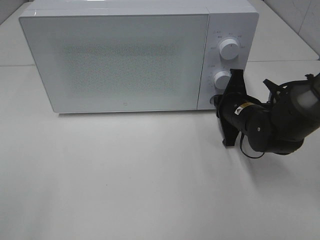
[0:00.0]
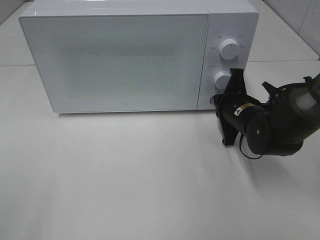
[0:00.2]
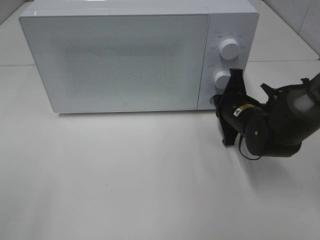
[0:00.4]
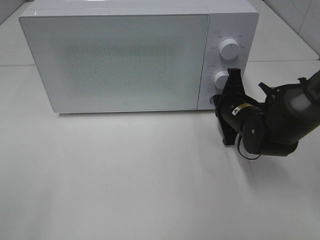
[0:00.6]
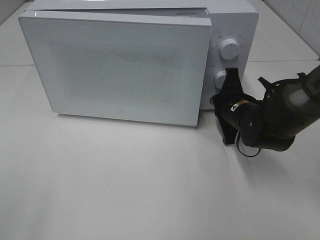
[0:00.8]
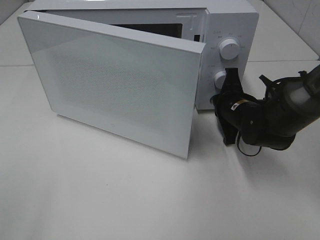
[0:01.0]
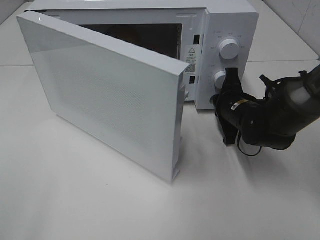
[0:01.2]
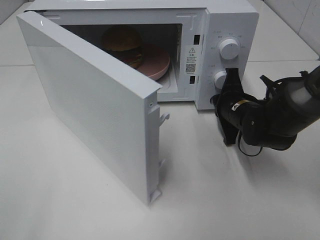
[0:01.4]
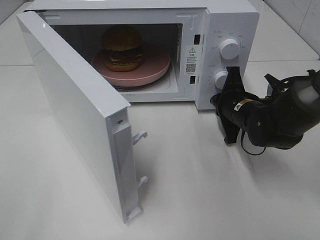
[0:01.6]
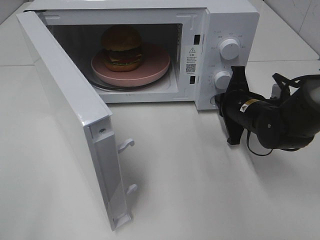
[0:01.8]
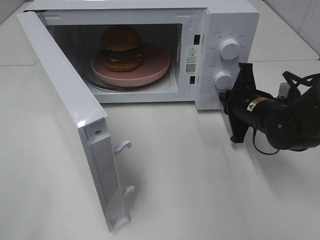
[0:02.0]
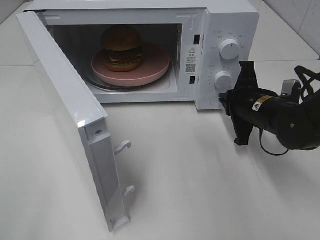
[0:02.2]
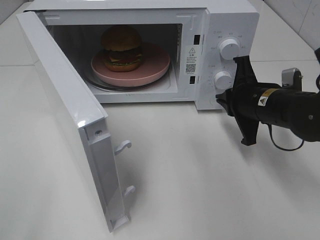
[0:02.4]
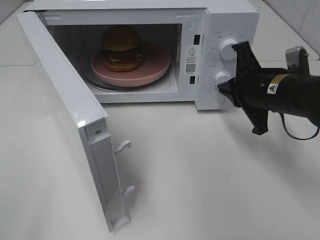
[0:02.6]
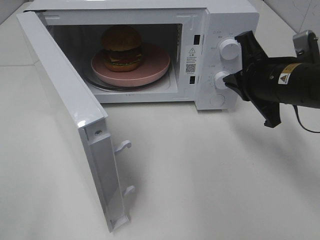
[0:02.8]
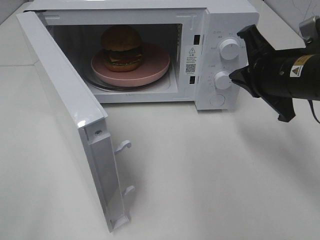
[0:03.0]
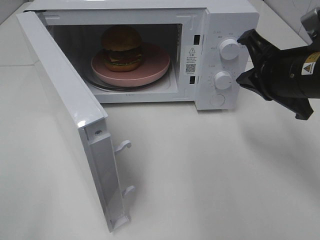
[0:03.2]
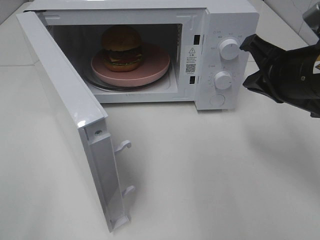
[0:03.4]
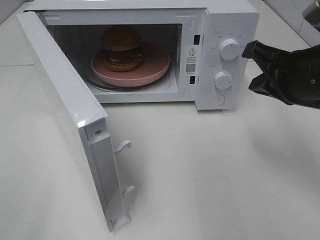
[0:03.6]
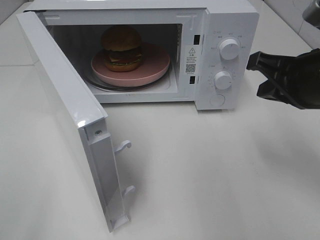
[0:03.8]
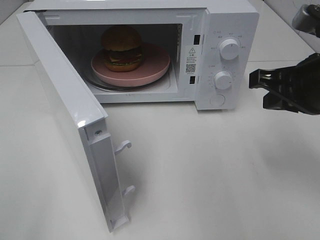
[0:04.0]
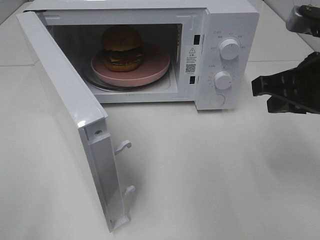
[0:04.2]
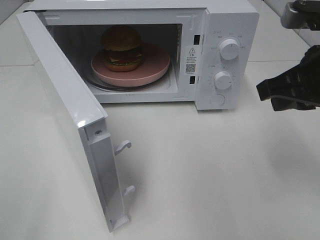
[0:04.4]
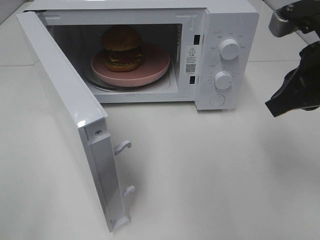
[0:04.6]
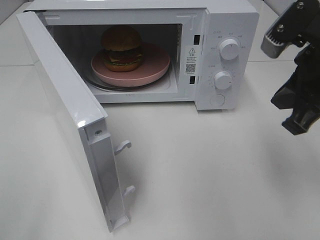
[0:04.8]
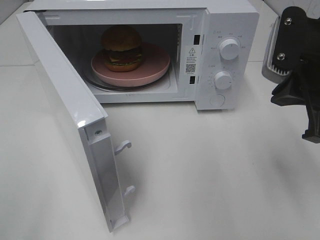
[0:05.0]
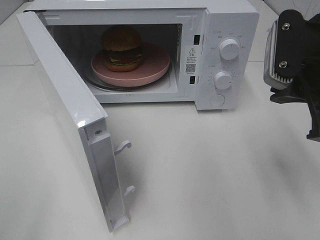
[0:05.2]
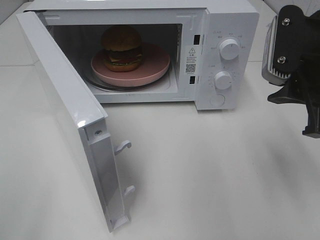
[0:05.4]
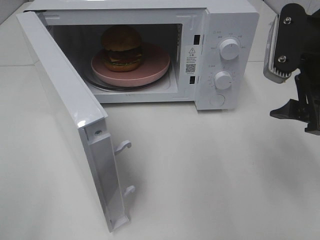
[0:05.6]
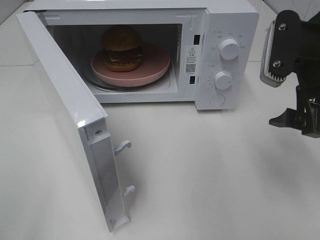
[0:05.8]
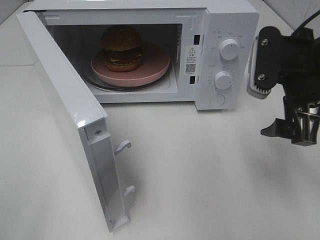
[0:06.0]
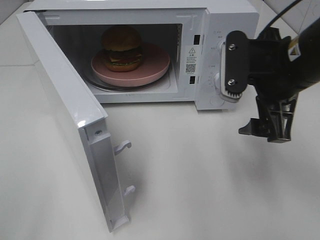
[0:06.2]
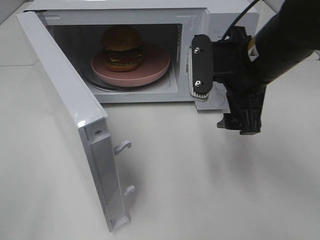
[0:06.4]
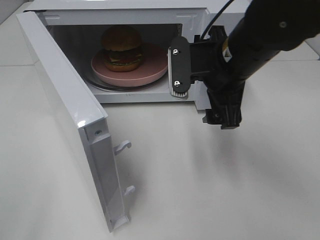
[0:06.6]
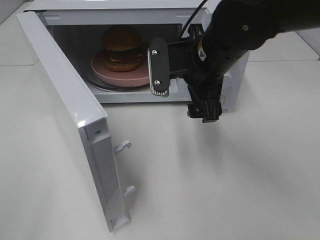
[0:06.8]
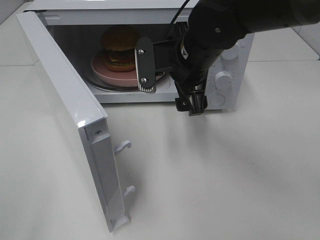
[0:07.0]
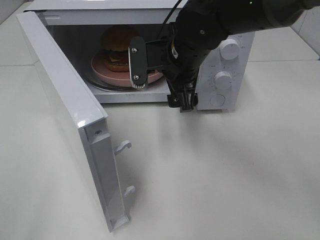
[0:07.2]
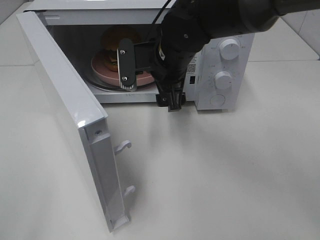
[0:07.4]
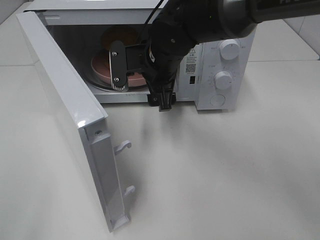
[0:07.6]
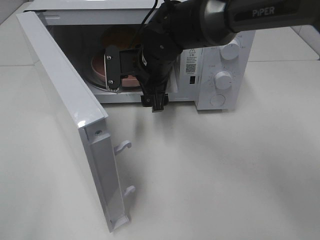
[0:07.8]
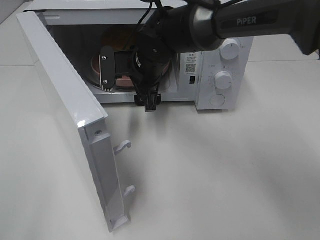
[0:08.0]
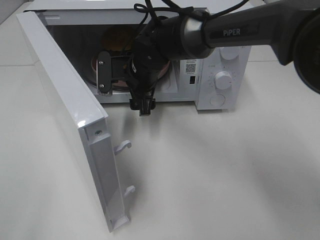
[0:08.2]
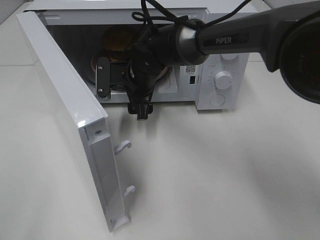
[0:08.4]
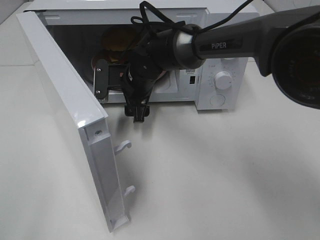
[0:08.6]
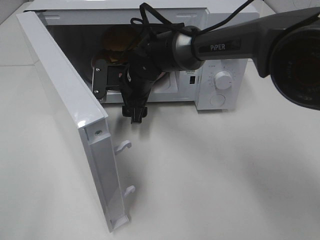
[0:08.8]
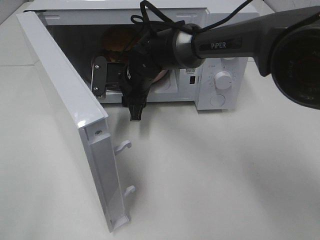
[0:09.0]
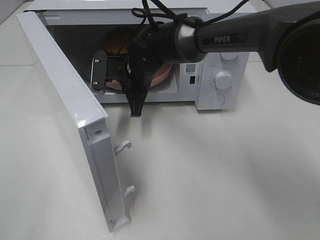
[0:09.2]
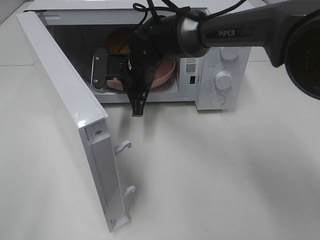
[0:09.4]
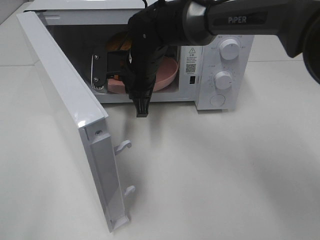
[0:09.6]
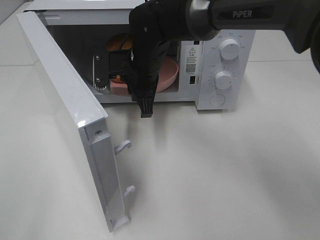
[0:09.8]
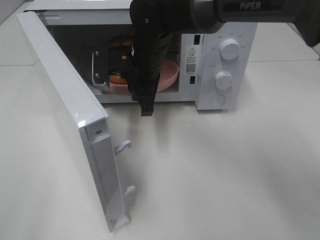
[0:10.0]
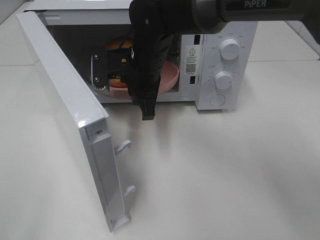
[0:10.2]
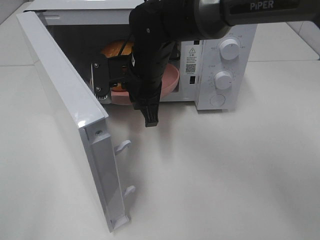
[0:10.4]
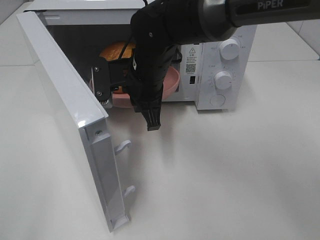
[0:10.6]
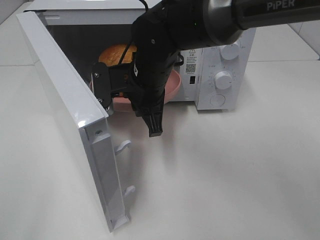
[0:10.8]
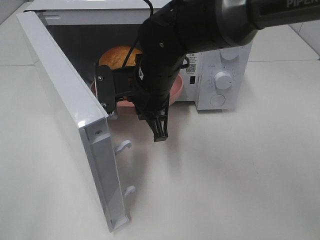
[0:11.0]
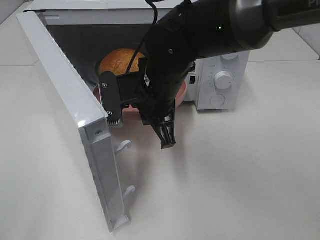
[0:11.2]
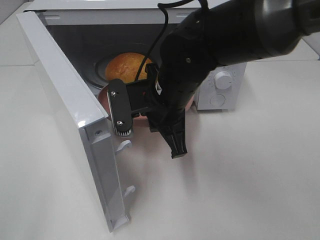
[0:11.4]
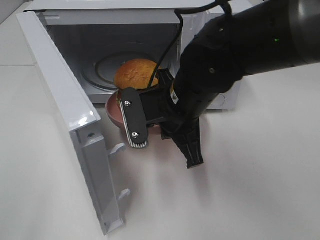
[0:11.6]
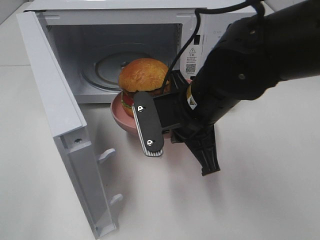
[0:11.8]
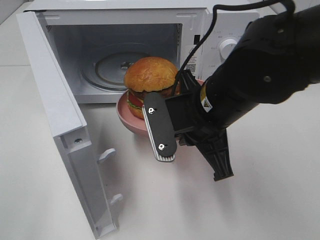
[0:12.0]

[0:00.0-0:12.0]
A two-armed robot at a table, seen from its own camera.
Task of the whole recording: Heat the burger.
Step, 0:00.0 to 0:02.0: Right hand: press the switch.
Step, 0:02.2 to 0:09.2: Right hand: grab the plate with the hamburger.
0:01.6 to 0:03.0: The right gripper moves upward and backward, approximately 15 cm.
0:03.0 to 0:04.4: The right gripper travels upward by roughly 5 cm.
0:04.4 to 0:06.0: The right gripper opens its fingers.
0:06.0 to 0:07.6: The right gripper moves to the left and forward, roughly 25 cm.
0:07.6 to 0:09.0: The right gripper goes some 5 cm downward, and closes its fingers.
0:09.0 to 0:10.4: The right gripper is displaced backward and upward by roughly 10 cm, and closes its fingers.
0:10.4 to 0:12.0: The right gripper is displaced backward and to the right by roughly 15 cm.

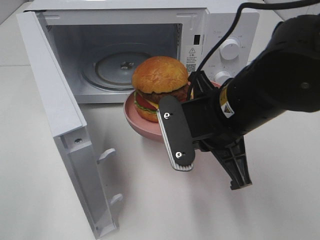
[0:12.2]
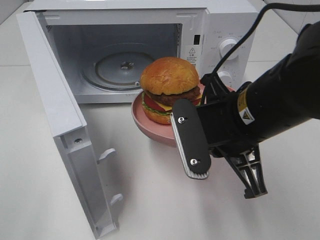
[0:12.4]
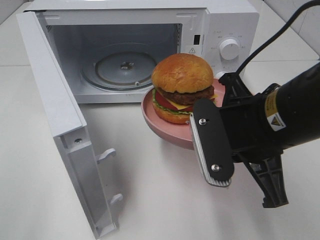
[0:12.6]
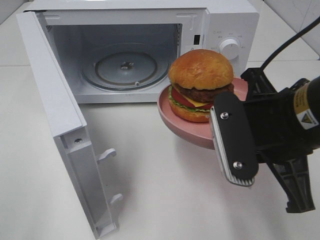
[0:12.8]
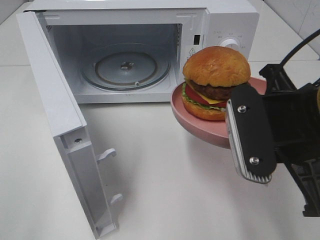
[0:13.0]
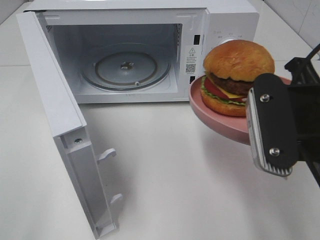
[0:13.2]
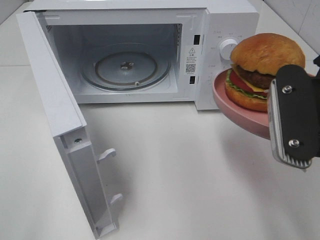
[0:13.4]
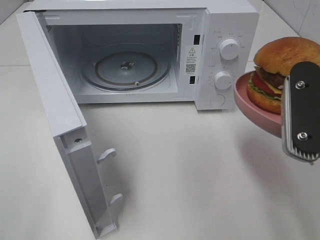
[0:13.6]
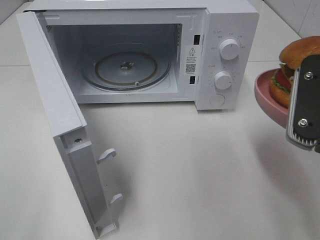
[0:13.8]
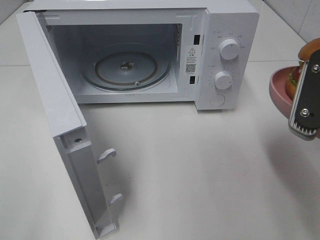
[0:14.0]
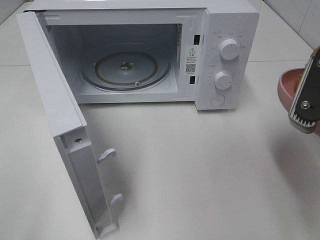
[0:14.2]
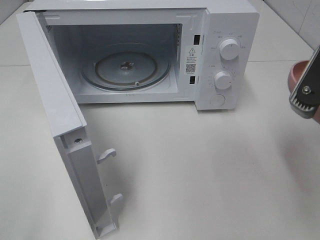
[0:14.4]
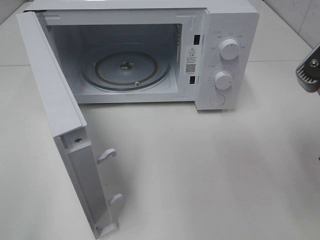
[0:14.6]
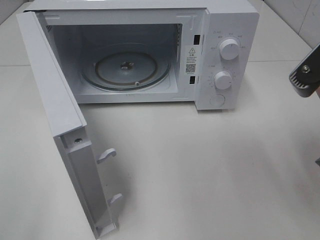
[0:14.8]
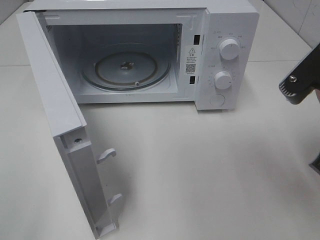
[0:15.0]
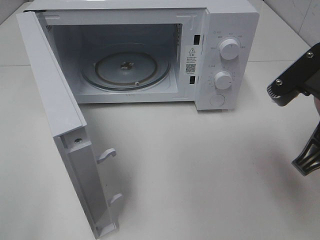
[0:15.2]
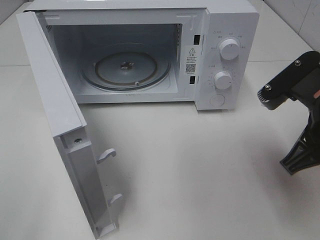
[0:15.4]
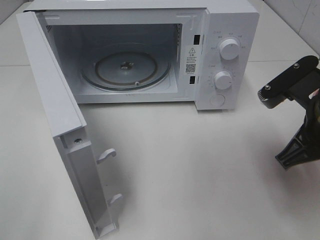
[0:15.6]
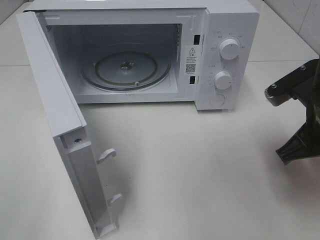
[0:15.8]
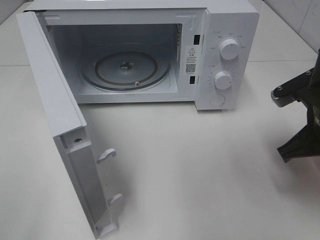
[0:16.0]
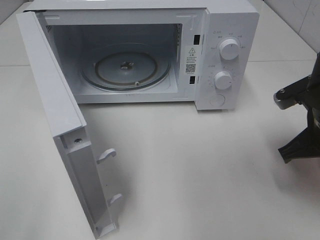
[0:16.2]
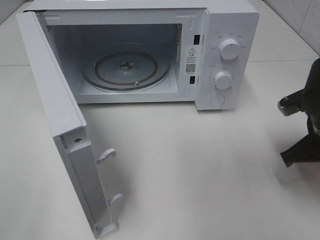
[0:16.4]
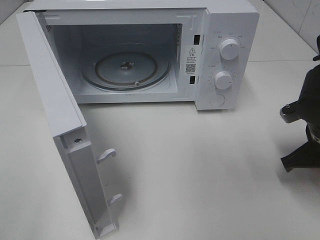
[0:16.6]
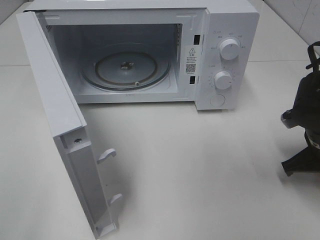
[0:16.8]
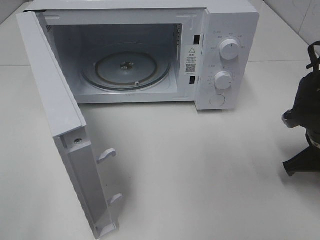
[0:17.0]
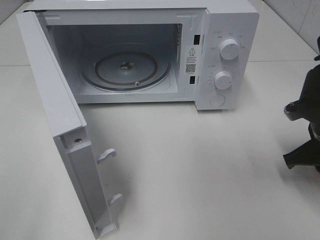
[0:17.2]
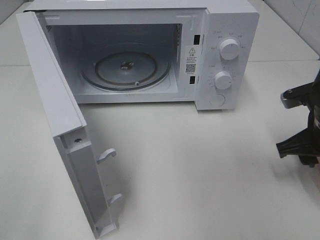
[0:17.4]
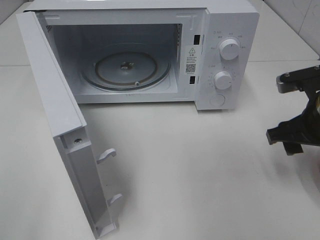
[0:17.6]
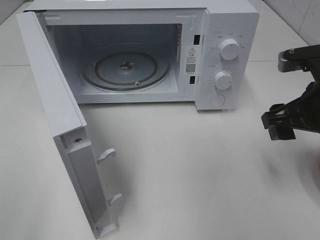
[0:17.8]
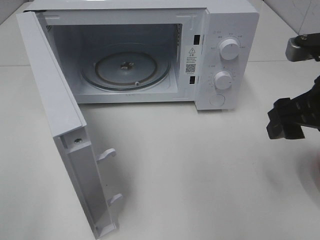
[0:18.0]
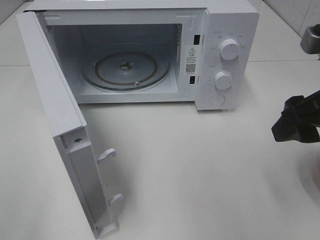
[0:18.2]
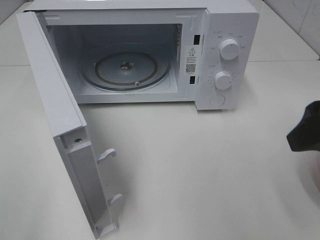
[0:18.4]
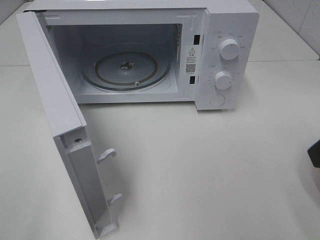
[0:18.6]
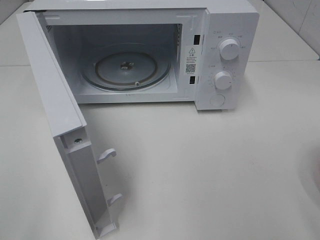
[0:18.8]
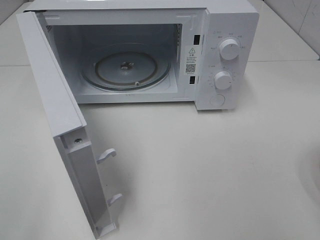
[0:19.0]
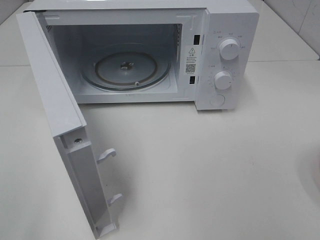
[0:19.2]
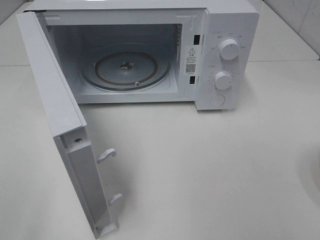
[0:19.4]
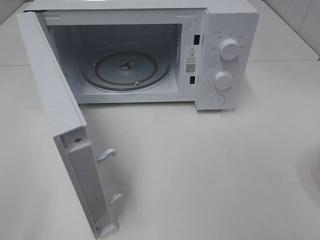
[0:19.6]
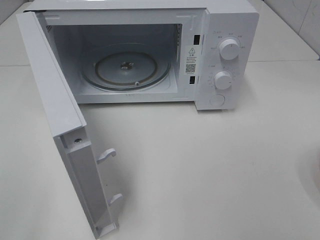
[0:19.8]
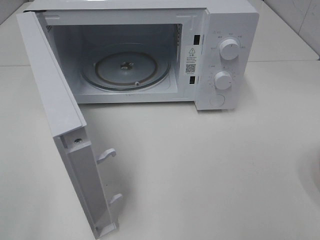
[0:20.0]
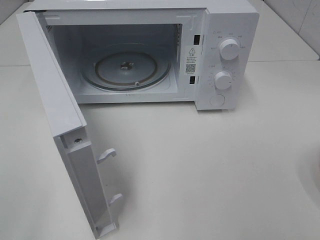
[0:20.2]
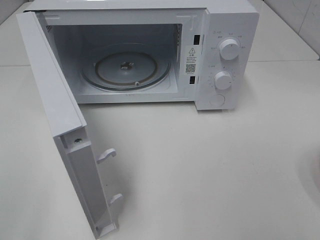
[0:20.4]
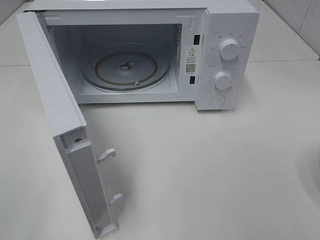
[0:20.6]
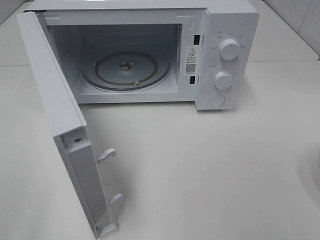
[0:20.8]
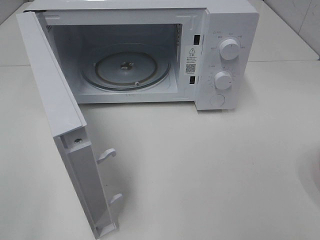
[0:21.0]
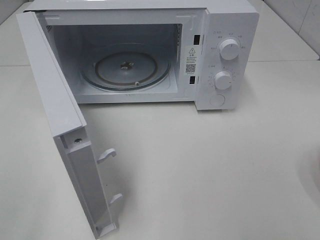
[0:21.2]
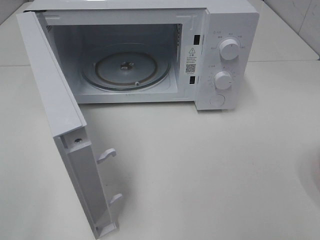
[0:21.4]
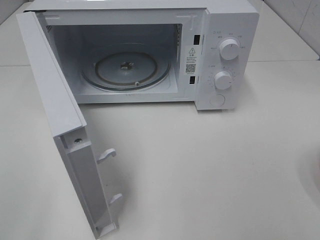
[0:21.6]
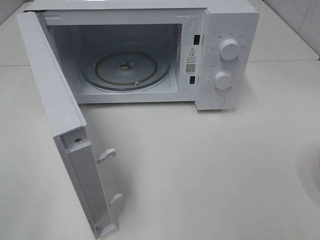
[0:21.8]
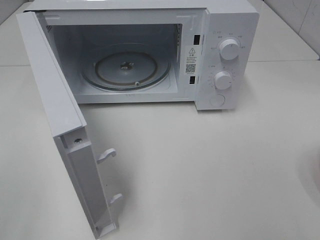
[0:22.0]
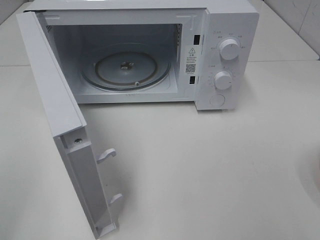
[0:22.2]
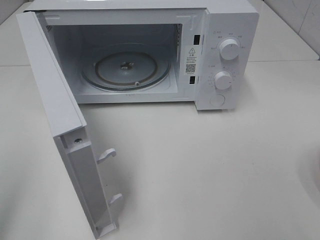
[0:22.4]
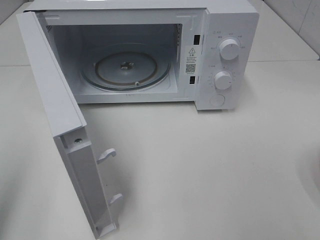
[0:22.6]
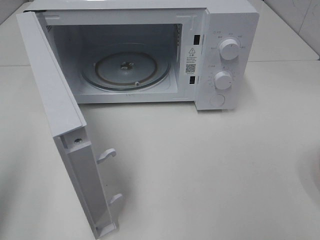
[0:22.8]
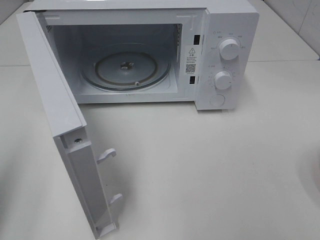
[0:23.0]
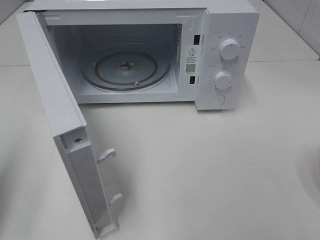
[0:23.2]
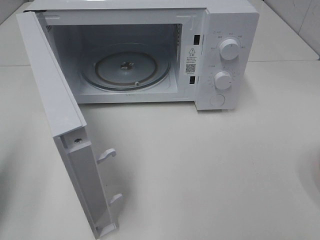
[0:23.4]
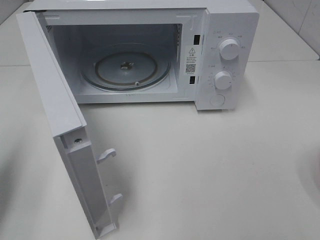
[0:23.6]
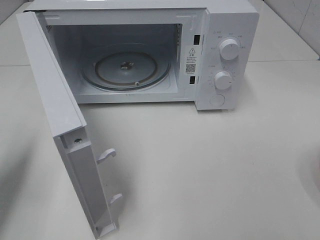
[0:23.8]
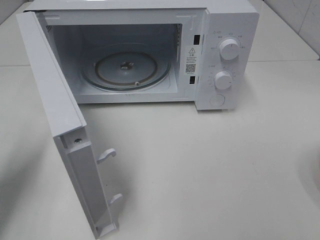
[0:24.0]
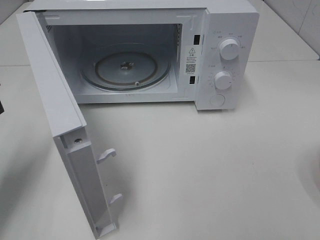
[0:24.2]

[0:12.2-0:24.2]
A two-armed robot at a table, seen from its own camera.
Task of the whole recording: Heat the burger.
Step, 0:12.2 to 0:17.2: Right hand: place the plate on the table.
0:12.2 to 0:13.8: The right gripper travels to the right, backward and upward by about 15 cm.
0:15.2 to 0:16.6: The right gripper heads downward, forward and to the right, covering approximately 15 cm.
0:16.6 to 0:18.2: The right gripper travels upward and backward by about 15 cm, and opens up.
0:18.2 to 0:19.8: The right gripper moves backward, roughly 20 cm.
0:19.8 to 0:21.2: The two grippers keep their place.
0:21.2 to 0:22.6: The left gripper shifts some 10 cm forward, and closes.
0:22.6 to 0:24.2: The left gripper goes some 15 cm forward and downward.
